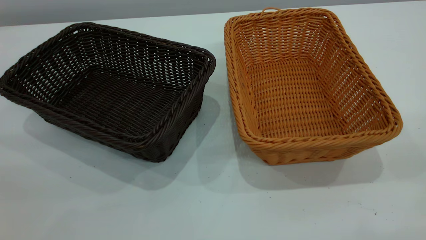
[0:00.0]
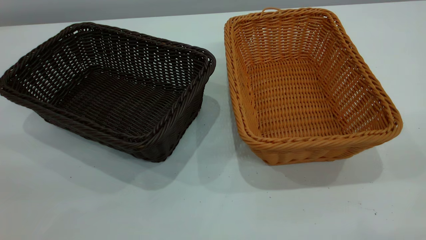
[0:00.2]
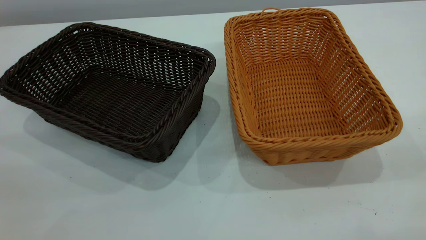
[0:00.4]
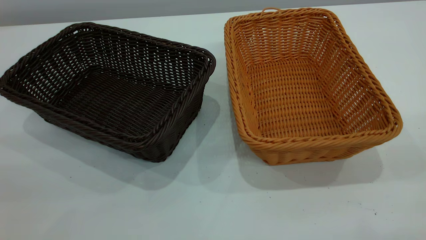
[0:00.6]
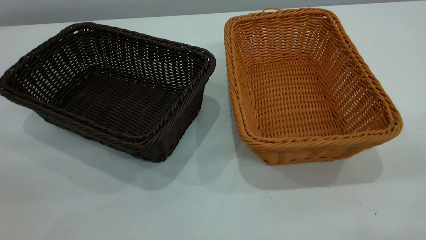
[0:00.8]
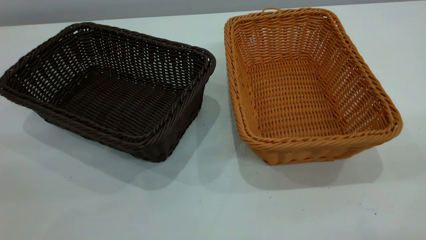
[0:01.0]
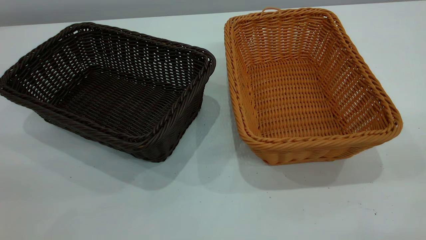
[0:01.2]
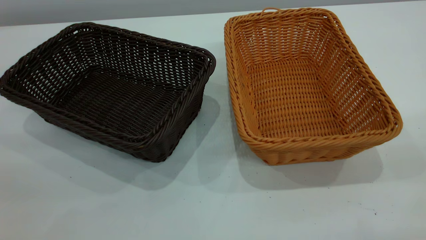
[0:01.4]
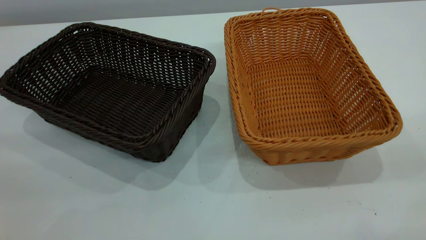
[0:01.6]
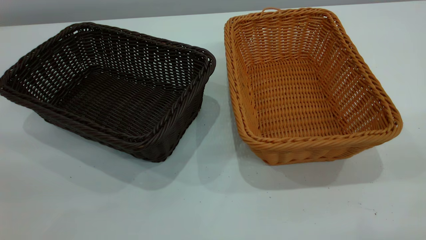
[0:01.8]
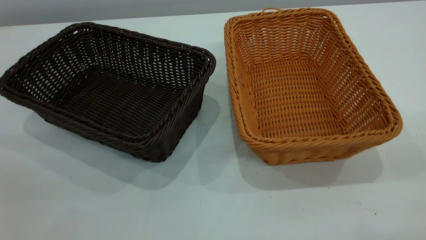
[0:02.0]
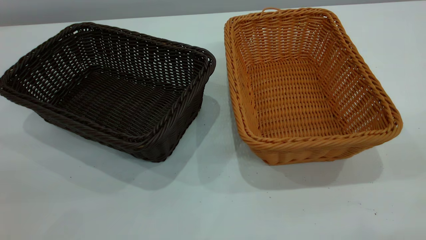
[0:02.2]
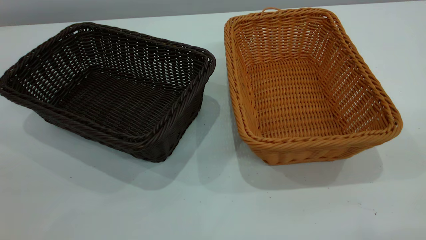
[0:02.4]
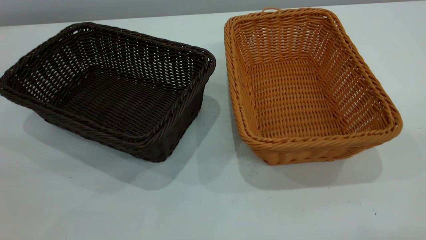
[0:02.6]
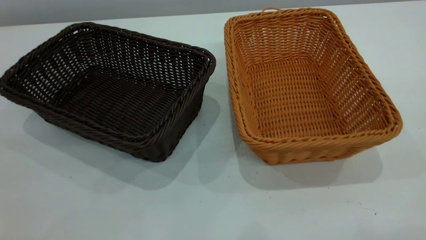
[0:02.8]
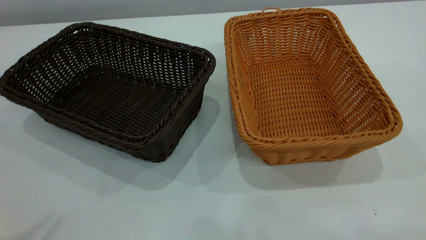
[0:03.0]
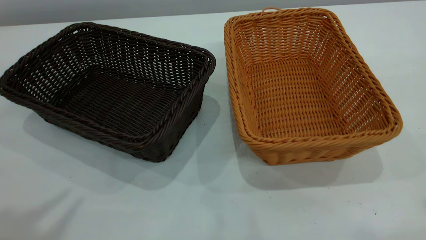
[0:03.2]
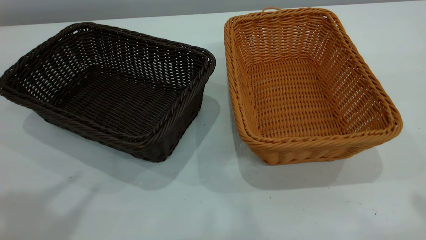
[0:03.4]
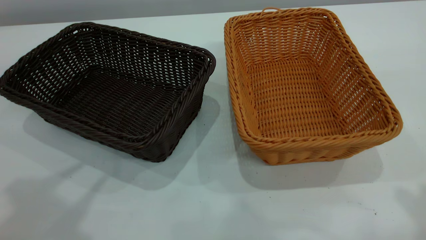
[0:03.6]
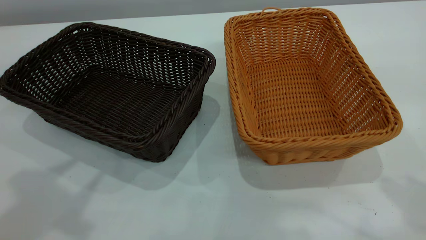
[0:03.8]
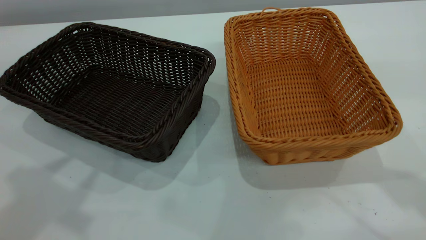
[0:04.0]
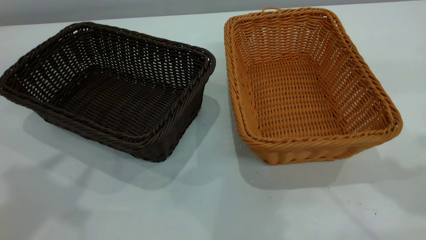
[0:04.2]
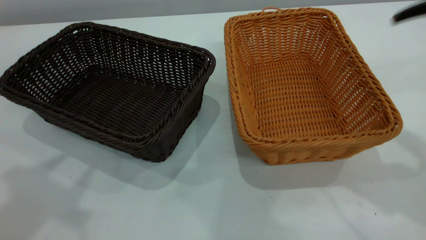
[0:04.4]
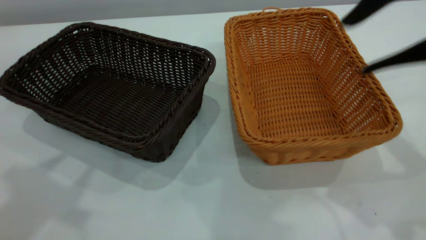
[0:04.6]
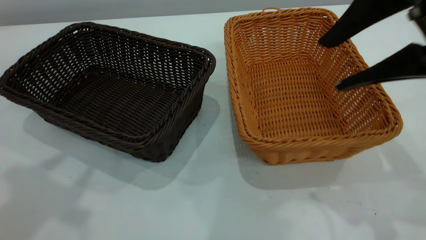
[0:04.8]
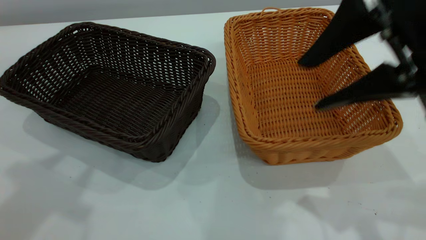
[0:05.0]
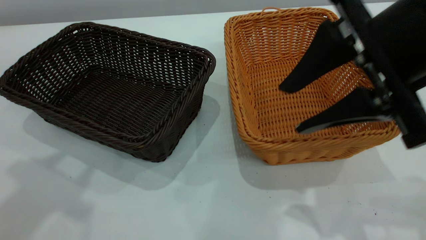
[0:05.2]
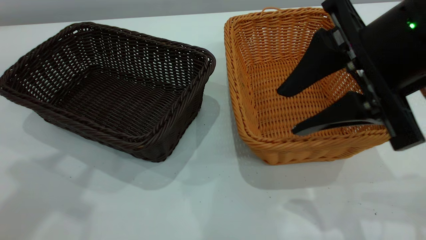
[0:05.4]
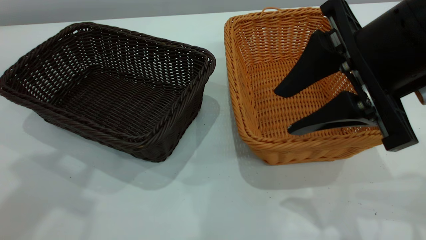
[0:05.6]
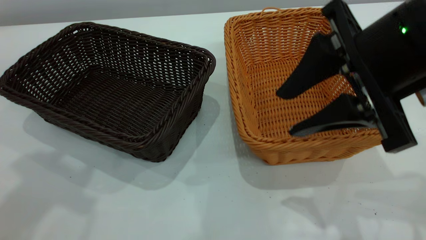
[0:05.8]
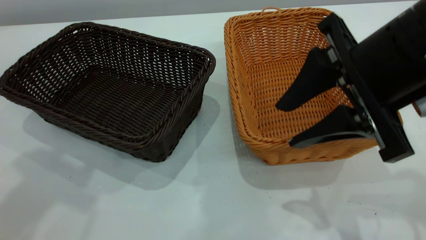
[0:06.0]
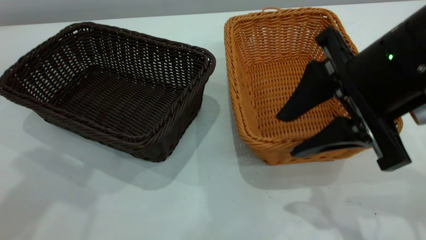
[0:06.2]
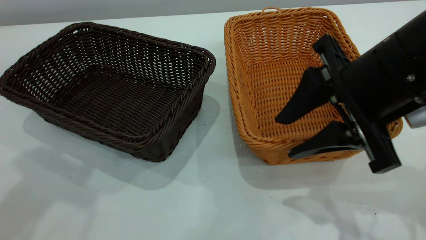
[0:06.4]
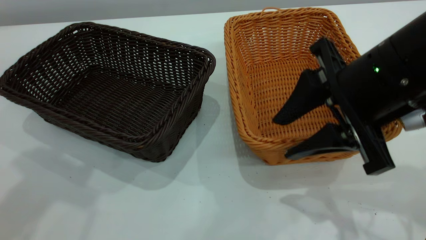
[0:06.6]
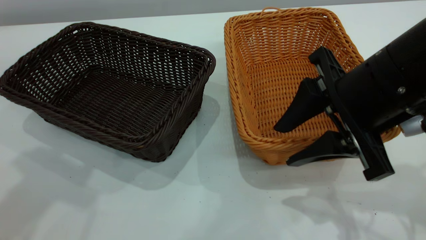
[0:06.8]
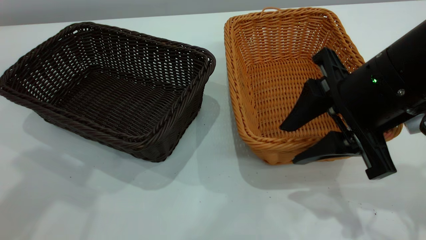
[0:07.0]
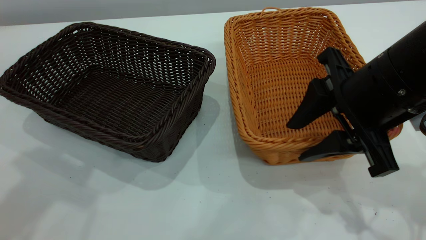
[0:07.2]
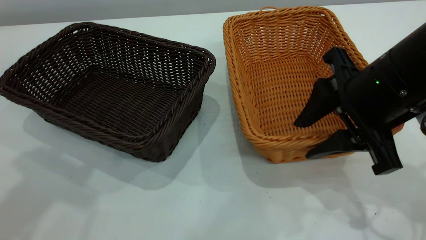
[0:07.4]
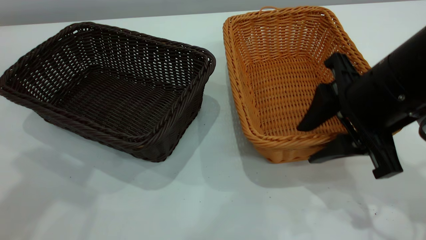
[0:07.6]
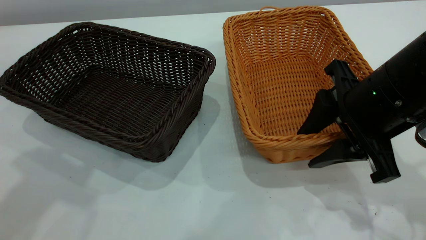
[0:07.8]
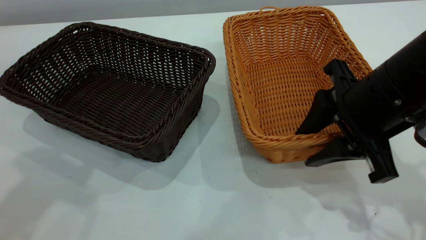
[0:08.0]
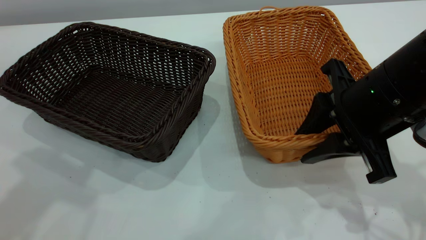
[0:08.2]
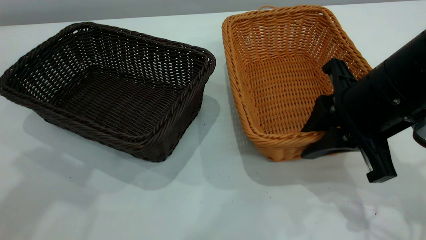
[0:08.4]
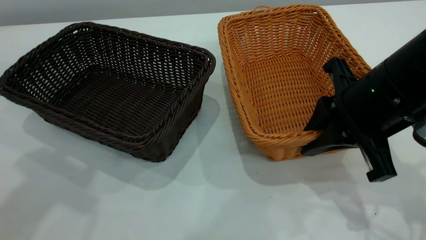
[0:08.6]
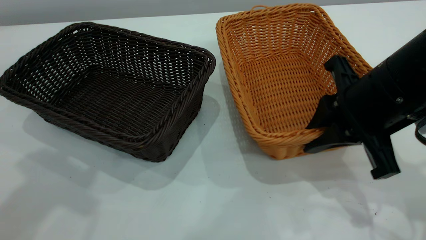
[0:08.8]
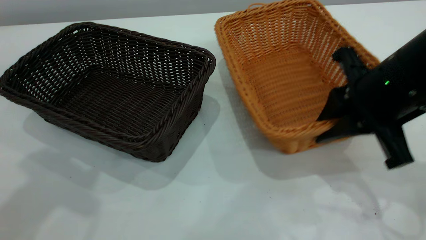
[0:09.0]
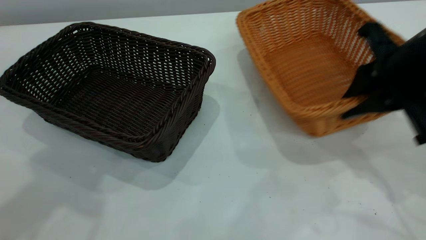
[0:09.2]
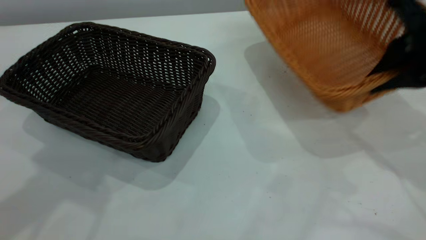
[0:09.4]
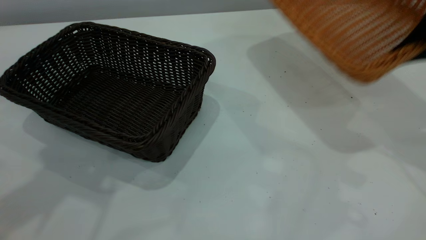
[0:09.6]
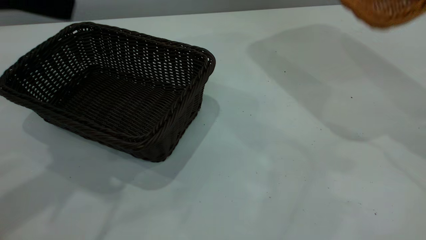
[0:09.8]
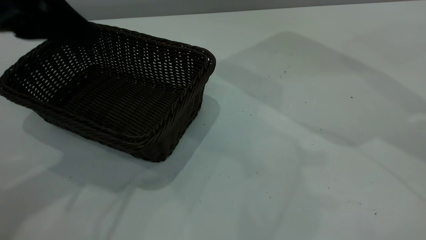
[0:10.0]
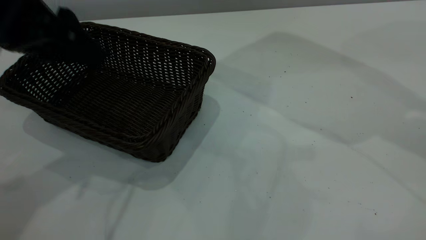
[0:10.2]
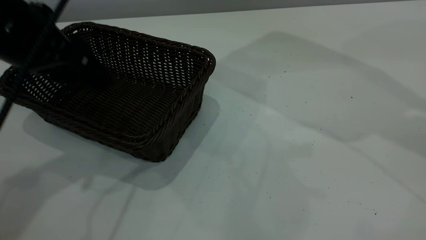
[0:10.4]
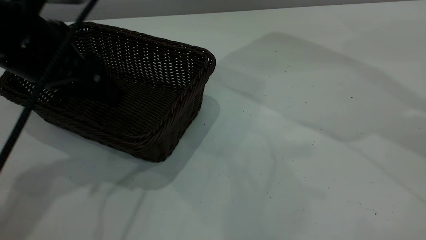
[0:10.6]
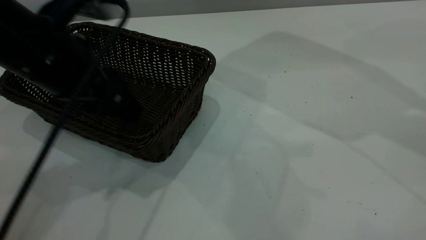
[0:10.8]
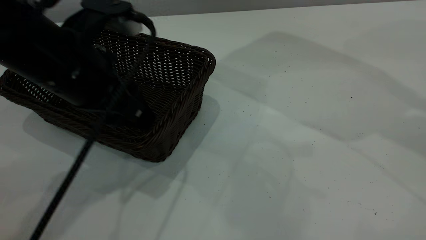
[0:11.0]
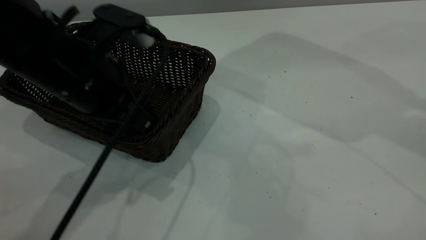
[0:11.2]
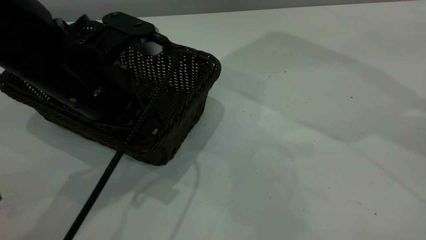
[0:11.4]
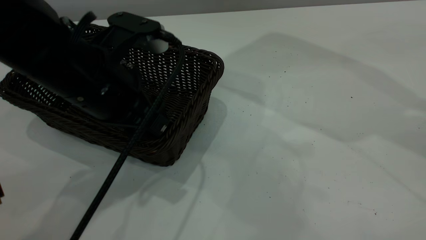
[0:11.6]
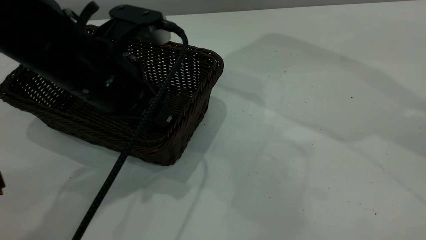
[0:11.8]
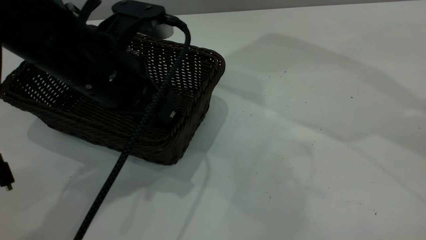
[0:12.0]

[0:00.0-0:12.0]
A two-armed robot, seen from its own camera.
Task of the whole recording: the left gripper grasp the black basket and place it in the center of the table, the right gripper grasp the brown basket and place it inside the black one.
Step, 0:00.0 to 0:09.0: Pick up the light basket with the right gripper.
0:00.0 to 0:01.6: Neither gripper changes place.
0:03.0 to 0:04.4: The right gripper travels forward, downward and to the left by about 15 cm, and opens its fingers.
0:04.4 to 0:06.0: The right gripper shifts approximately 10 cm downward and to the left.
0:06.0 to 0:07.6: The right gripper is displaced downward by some 5 cm.
0:07.6 to 0:09.0: The right gripper closes up.
0:09.0 to 0:10.4: The left gripper is displaced downward and forward by roughly 15 cm, while the right gripper travels upward and to the right by approximately 20 cm.
0:10.4 to 0:12.0: The left gripper shifts roughly 10 cm to the right.

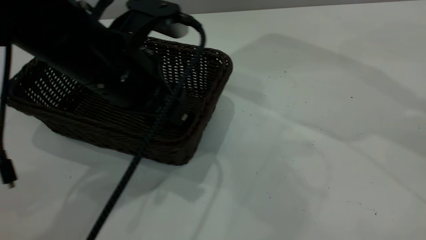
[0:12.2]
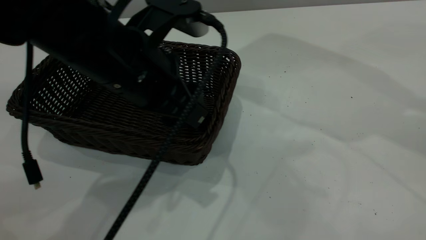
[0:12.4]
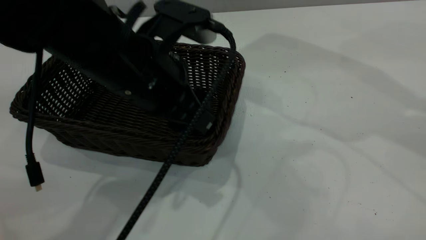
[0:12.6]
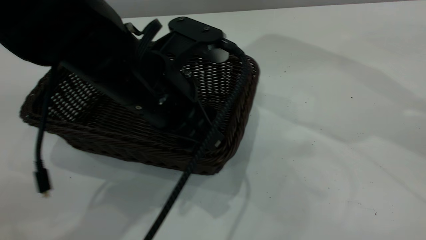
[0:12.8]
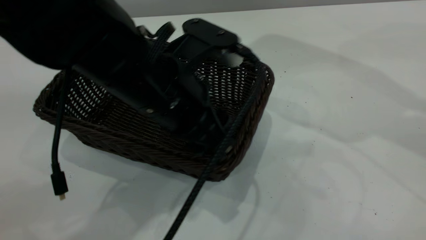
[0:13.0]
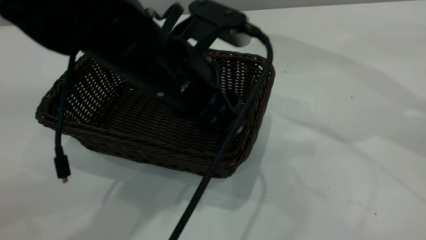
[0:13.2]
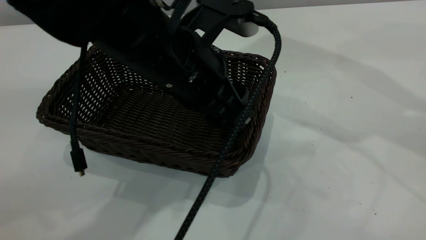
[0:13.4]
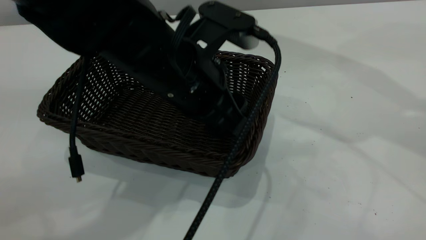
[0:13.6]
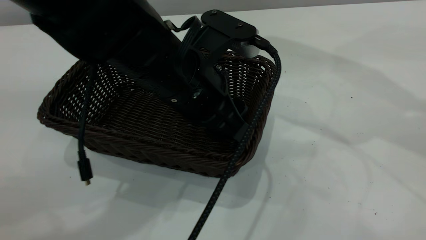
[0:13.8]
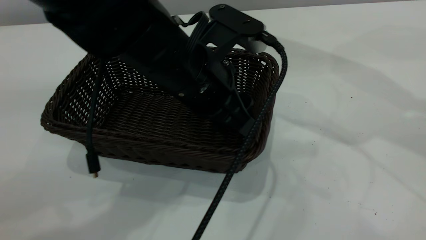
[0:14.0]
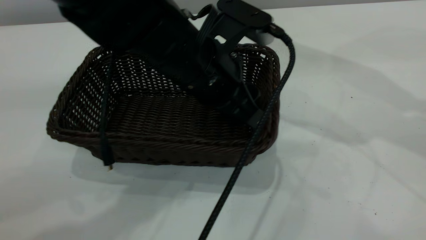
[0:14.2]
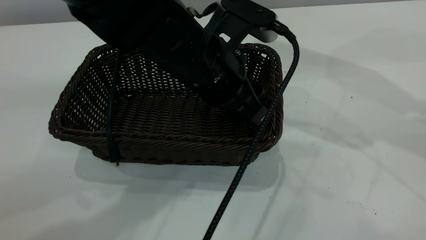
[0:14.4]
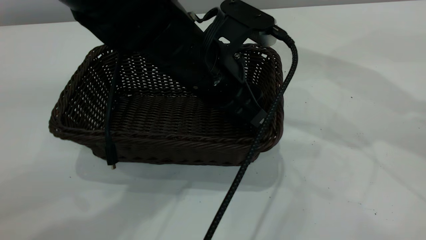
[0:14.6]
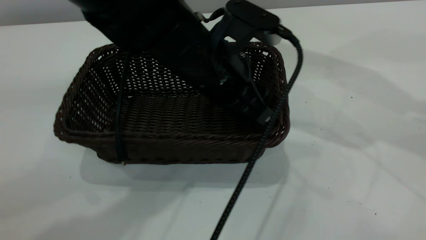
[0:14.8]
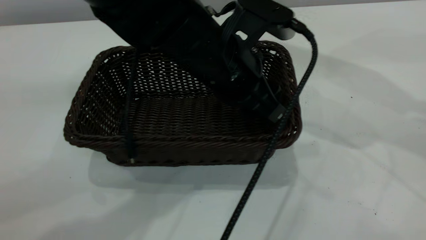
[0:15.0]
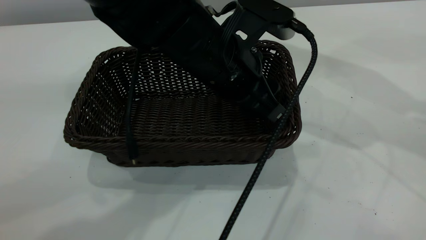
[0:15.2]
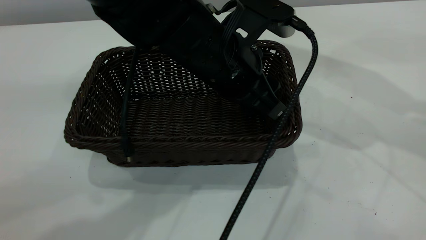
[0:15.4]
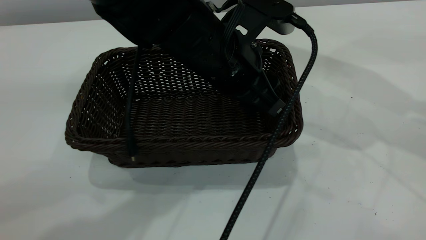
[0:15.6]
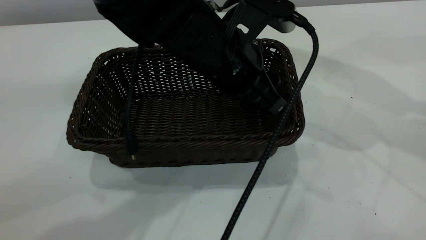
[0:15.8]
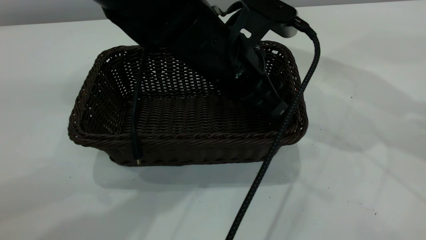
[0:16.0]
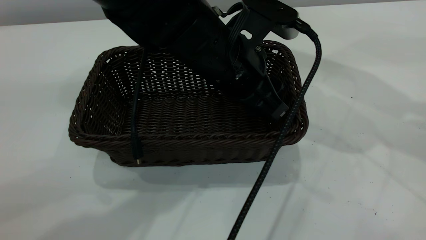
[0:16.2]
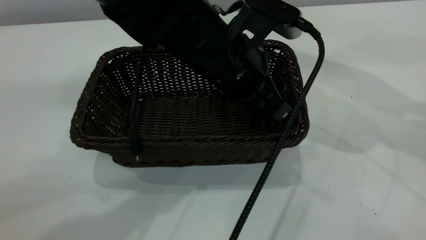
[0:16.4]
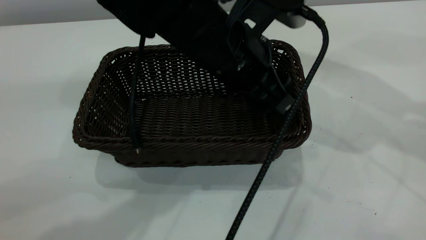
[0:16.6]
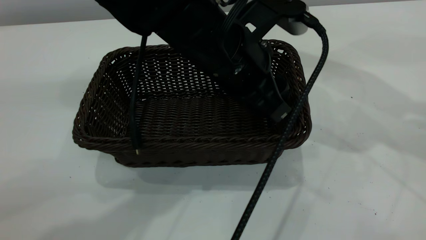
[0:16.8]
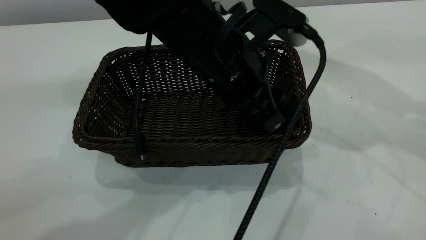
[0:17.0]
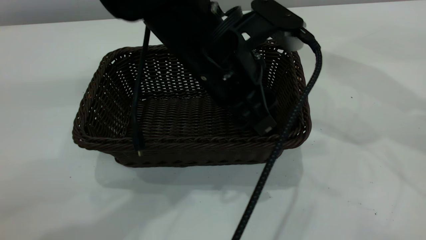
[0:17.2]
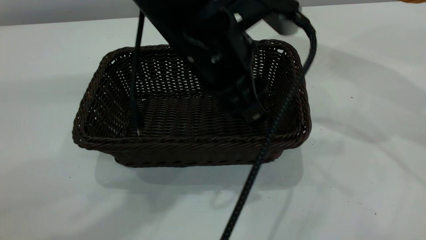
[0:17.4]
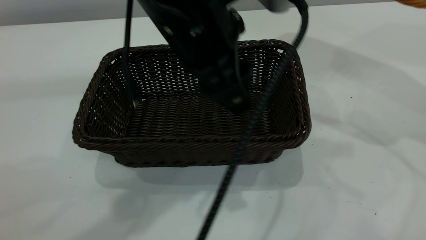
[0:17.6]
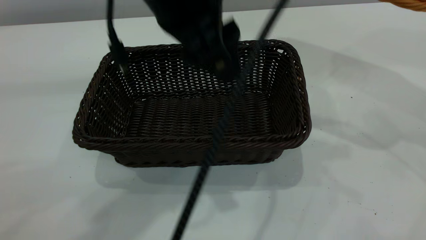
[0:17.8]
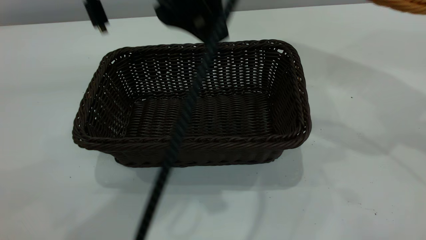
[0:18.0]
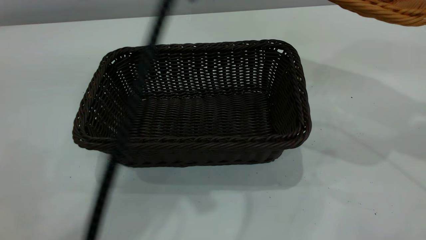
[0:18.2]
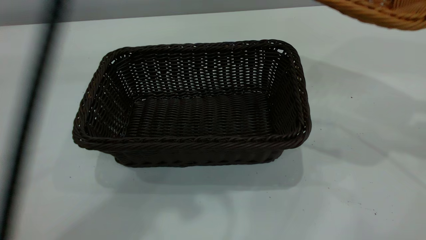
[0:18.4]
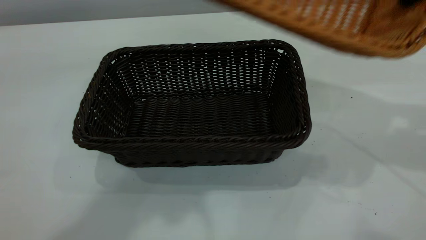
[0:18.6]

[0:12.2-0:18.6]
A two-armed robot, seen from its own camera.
Task of the whole recording: the left gripper grasp the black basket and place it in the center of the table, the right gripper grasp the brown basket and place it inside the black one.
Step, 0:12.2 to 0:18.0: Move the dark basket to the center of view.
0:12.2 to 0:13.8: The left gripper moves to the right, approximately 5 cm.
0:15.4 to 0:17.0: The grippers make only small movements.
0:17.0 to 0:18.6: The left gripper moves upward and to the left, about 30 cm.
